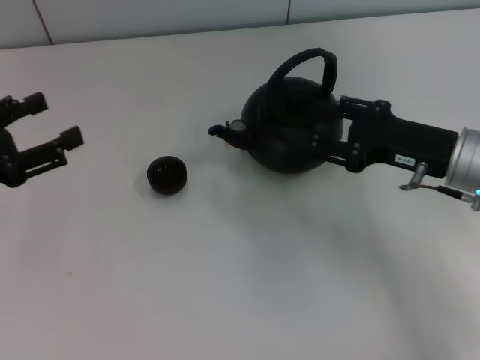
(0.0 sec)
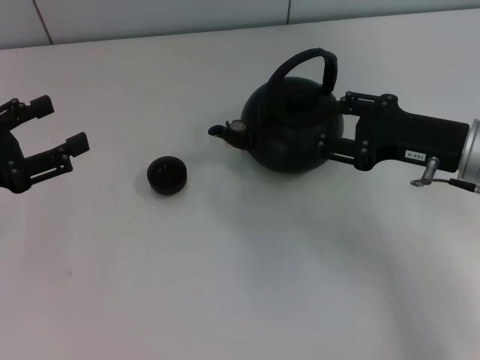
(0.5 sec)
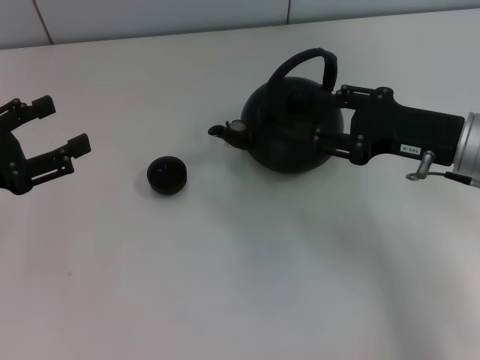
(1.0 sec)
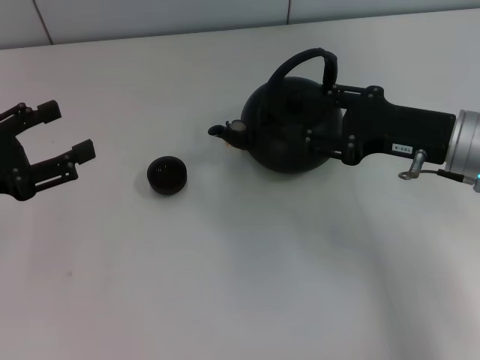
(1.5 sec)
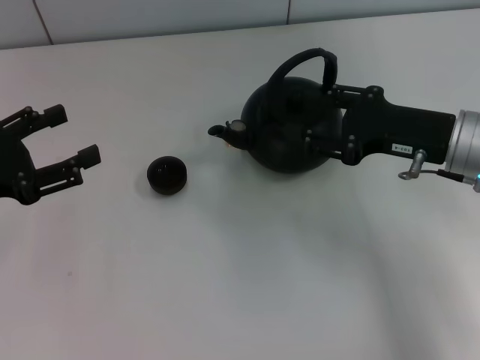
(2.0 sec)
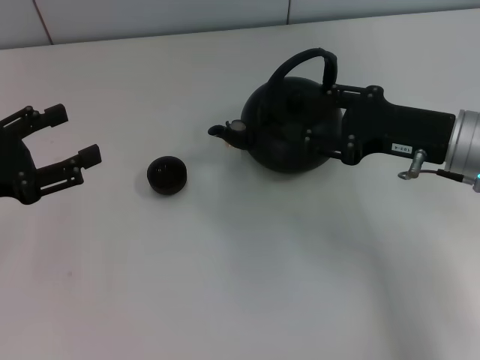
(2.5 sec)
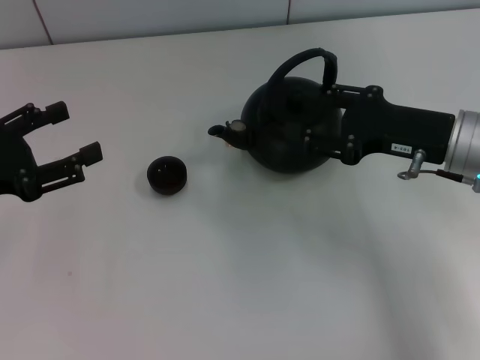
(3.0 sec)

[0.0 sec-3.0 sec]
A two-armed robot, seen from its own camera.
Task of the whole recording: Grasp the handle of the teapot with one hand and pour tea into the teacup.
0.0 sec to 1.5 sec: There are only small adjustments of the grippers.
1.5 sec to 3.0 sec: The two grippers keep their place.

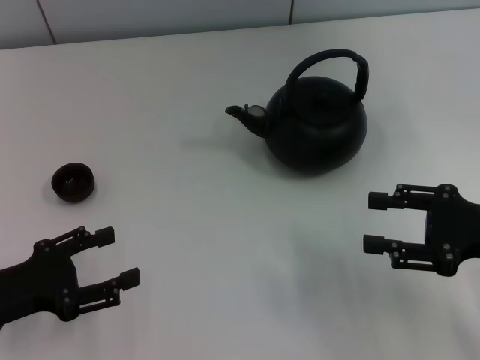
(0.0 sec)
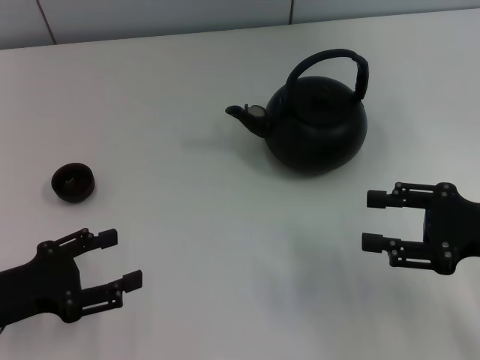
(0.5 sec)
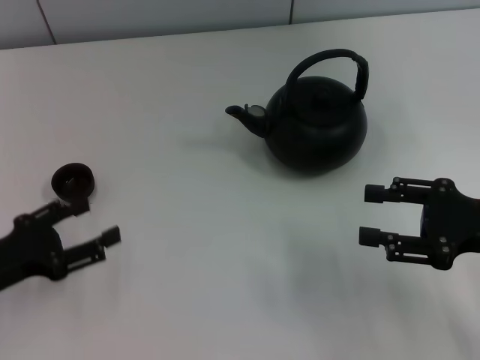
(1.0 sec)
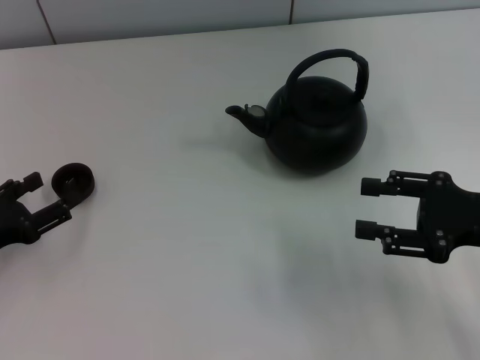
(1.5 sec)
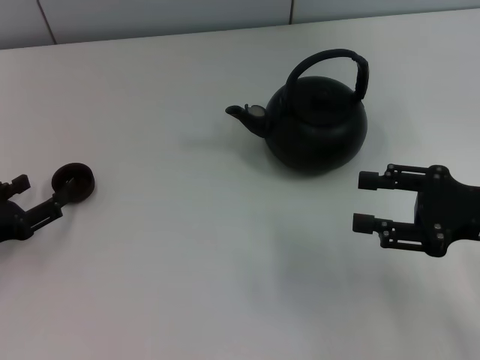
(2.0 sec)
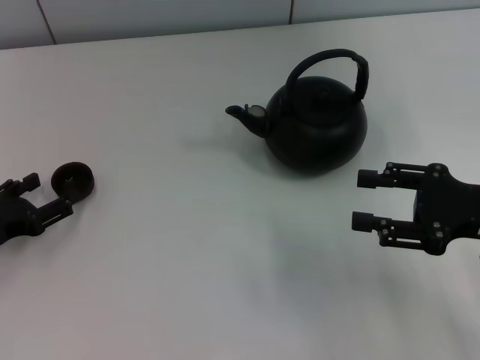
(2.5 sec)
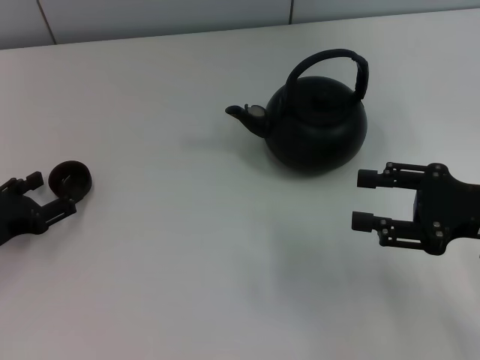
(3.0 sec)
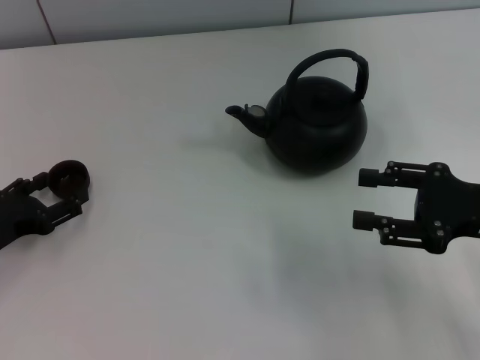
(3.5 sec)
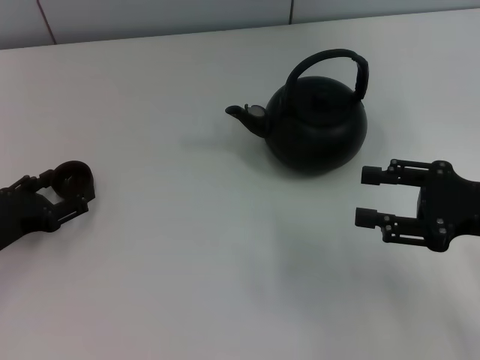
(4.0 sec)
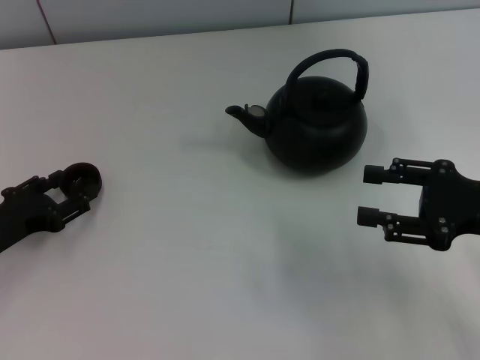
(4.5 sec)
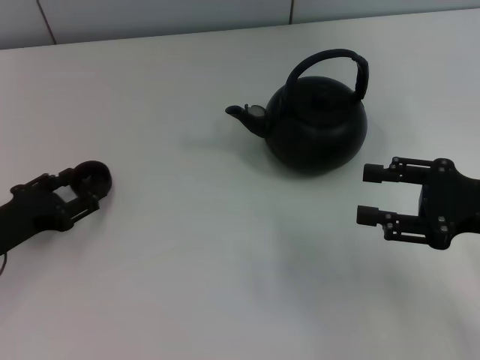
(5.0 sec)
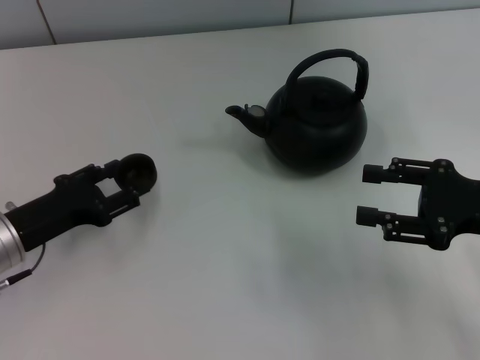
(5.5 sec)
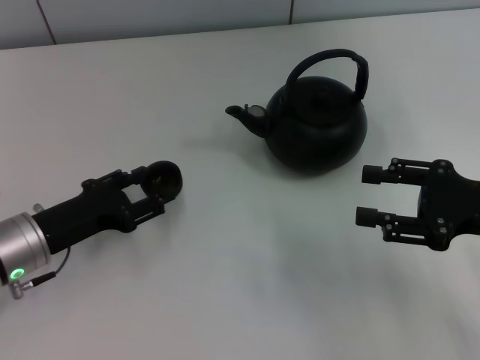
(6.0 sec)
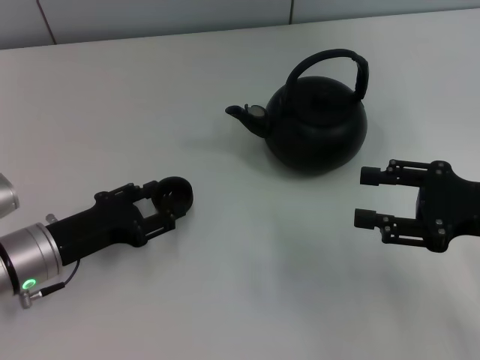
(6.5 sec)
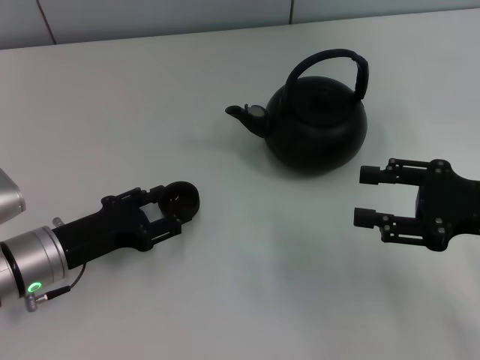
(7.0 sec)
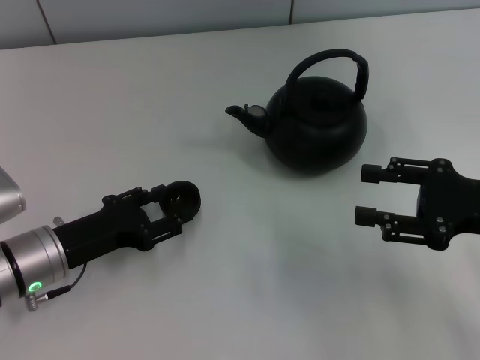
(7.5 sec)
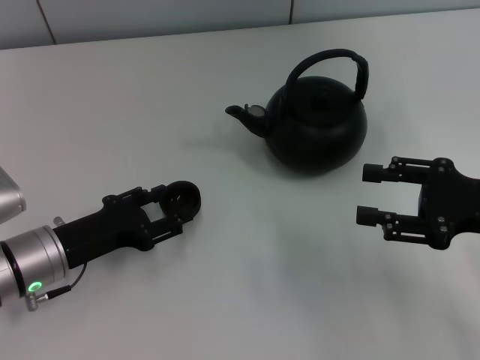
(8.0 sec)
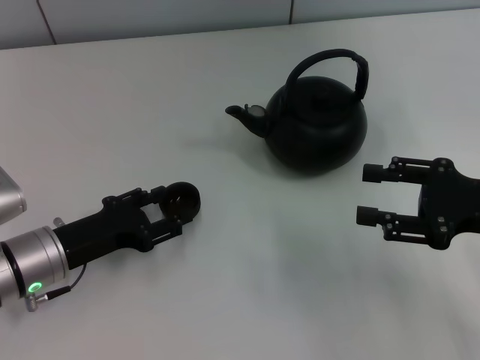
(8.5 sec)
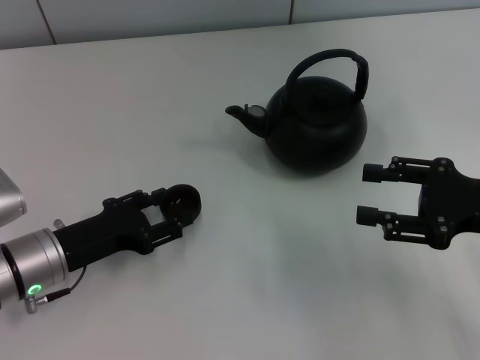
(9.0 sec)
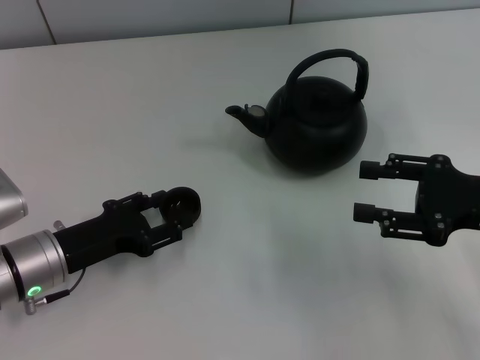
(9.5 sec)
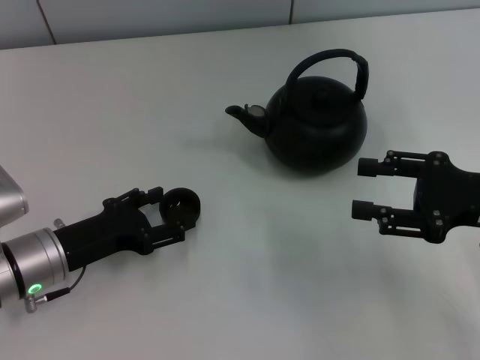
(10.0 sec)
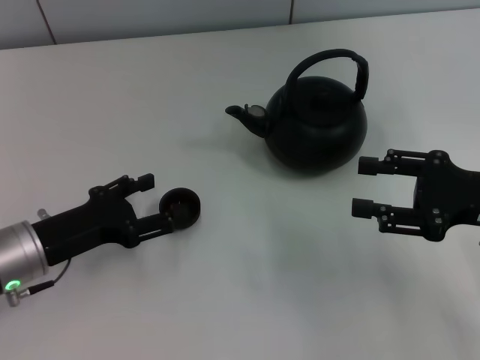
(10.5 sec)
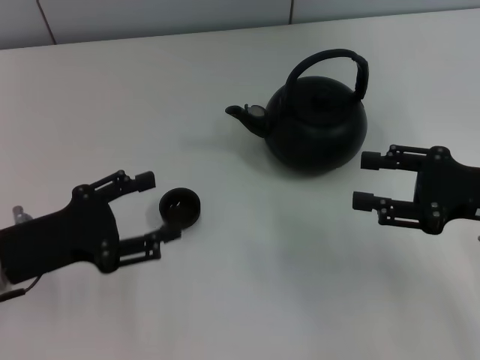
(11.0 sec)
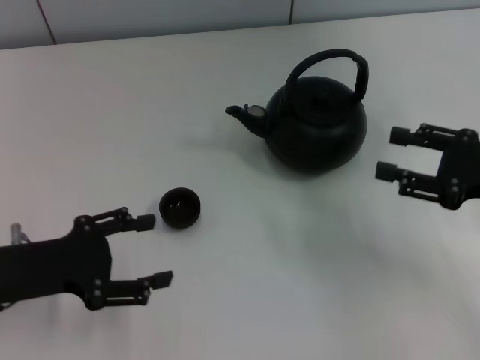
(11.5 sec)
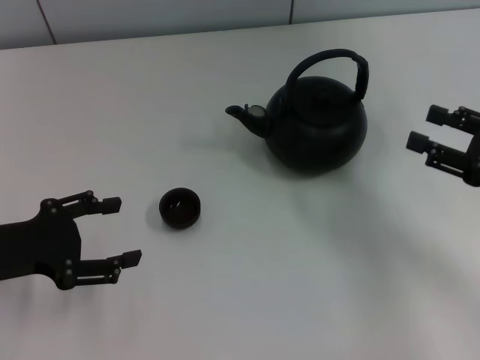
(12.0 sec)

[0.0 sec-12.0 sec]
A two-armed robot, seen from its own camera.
Task of the whole recording: Grasp the handle of the teapot with one hand and pour tea into the teacup.
Step, 0.0 sec to 5.0 sec: Pick up the teacup with the left gripper.
Step, 5.5 sec to 10.5 sec: Place the teacup in the center of view with the left gripper.
0.0 sec to 2.0 sec: The left gripper moves about 5 cm.
2.0 sec to 4.0 sec: The grippers make only small movements.
4.0 sec to 6.0 sec: The left gripper moves to the right, about 5 cm, and closes its fingers.
6.0 sec to 8.0 sec: There are only small adjustments of the grippers.
8.0 sec to 10.0 sec: Both grippers stay put.
10.0 sec to 12.0 sec: The left gripper goes about 10 cm upward and to the left.

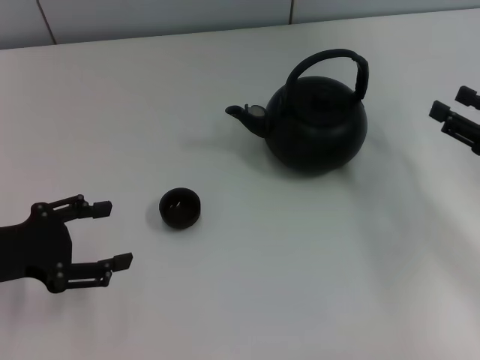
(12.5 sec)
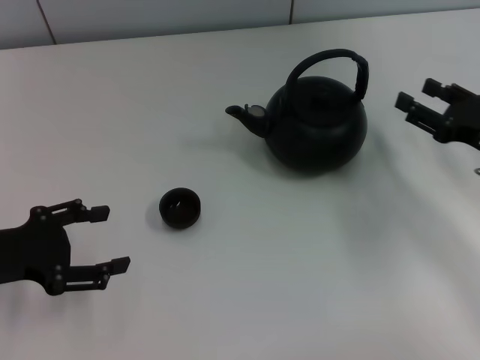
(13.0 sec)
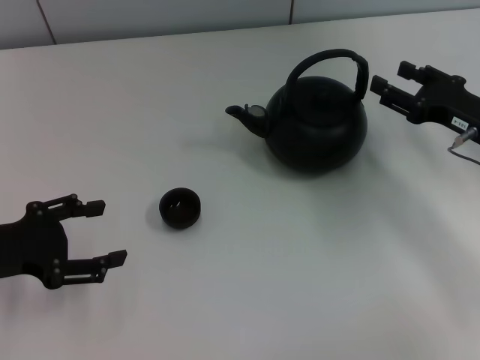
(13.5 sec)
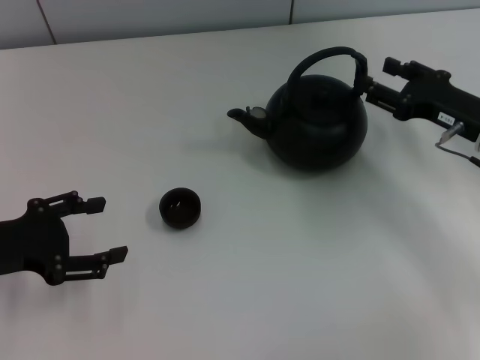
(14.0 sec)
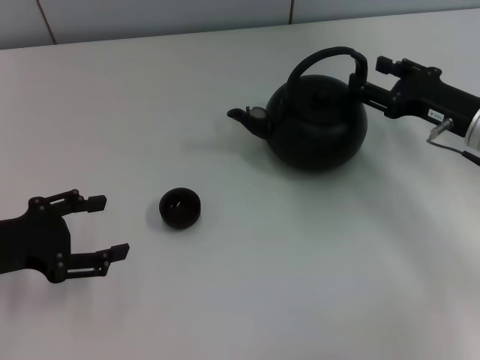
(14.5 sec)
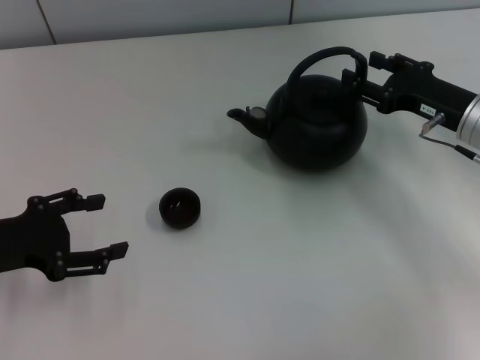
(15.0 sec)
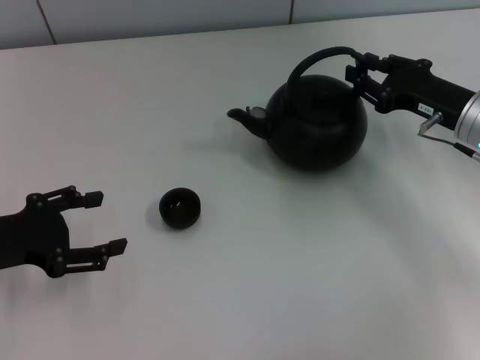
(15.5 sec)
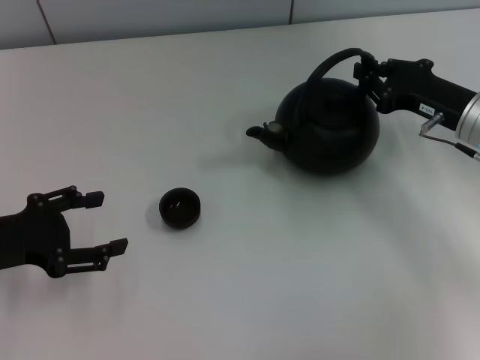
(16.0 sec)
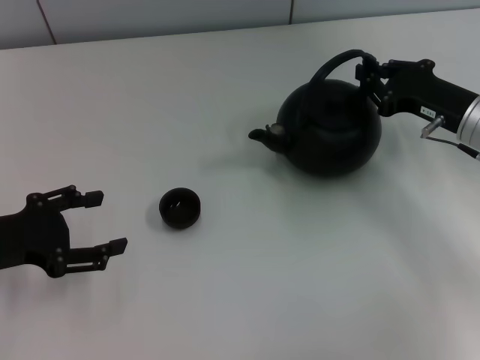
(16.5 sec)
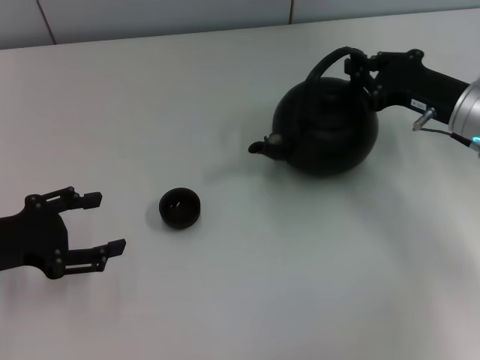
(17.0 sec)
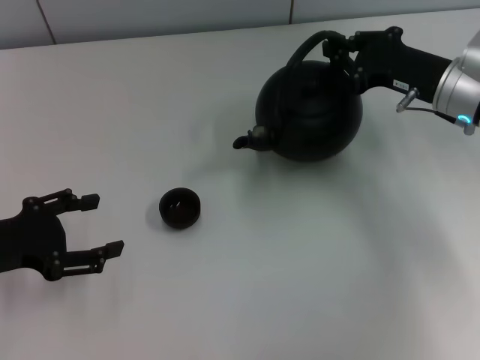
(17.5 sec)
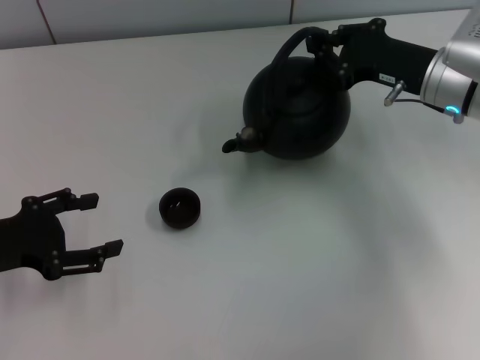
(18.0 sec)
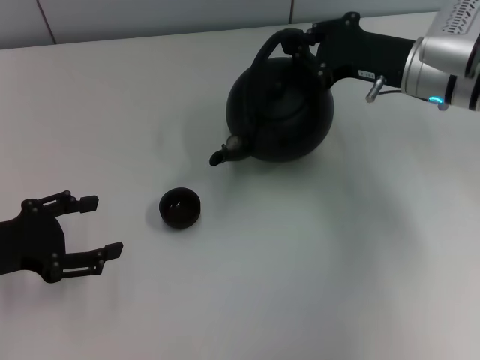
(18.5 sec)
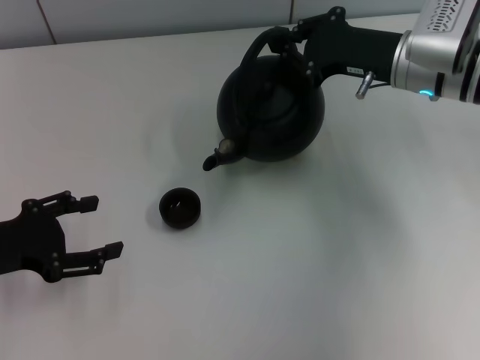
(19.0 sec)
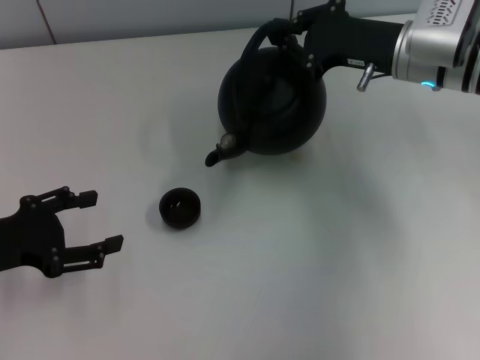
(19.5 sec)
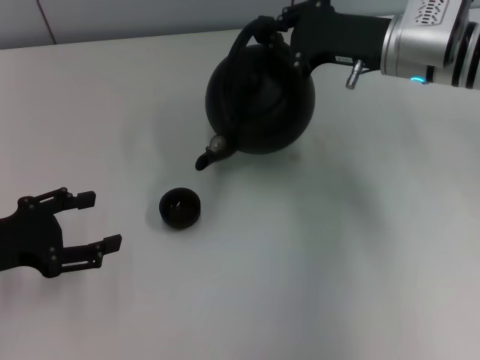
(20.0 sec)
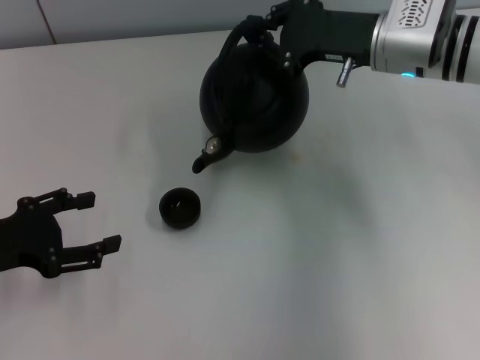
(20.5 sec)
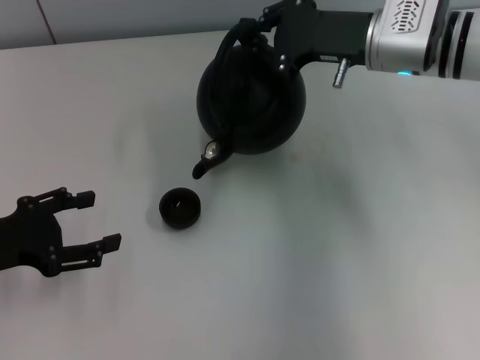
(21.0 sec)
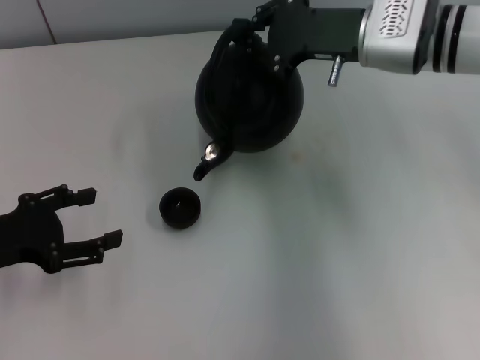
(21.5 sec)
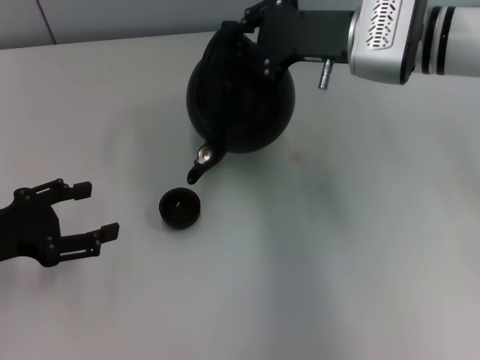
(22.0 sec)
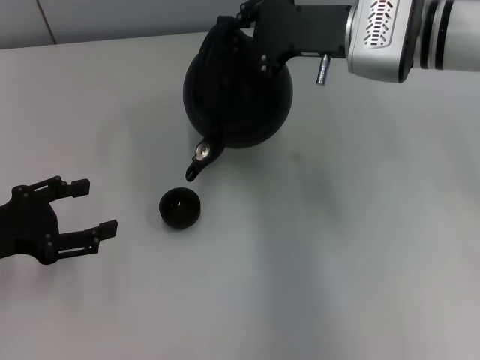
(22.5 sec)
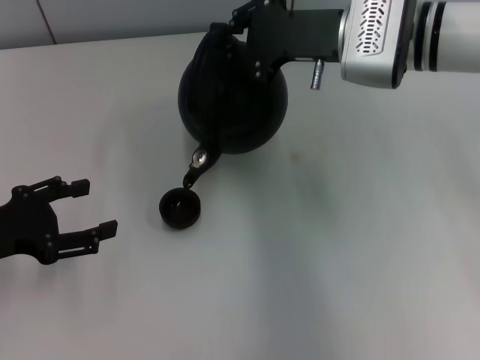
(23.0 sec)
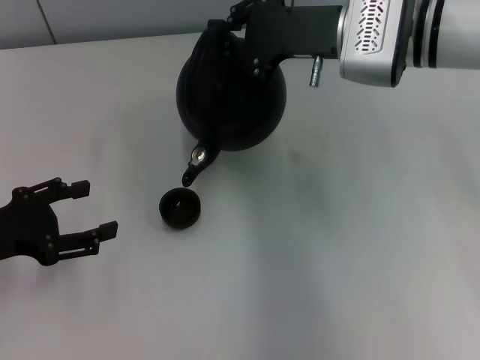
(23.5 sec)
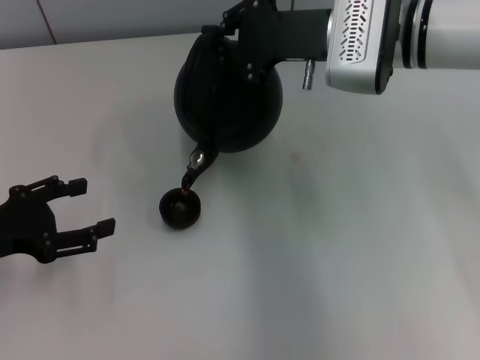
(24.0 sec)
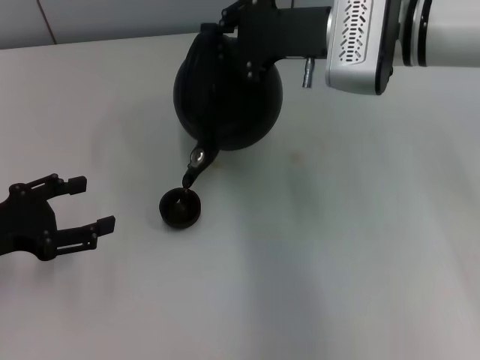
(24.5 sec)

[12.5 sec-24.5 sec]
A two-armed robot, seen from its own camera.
Task of the whole recording: Grasp the handle of the teapot with one hand and pour tea into the teacup.
Step, 12.5 sec to 17.5 sec: Pick up the teapot with the right gripper.
12.5 sec to 14.5 sec: The right gripper is displaced forward and to the left by approximately 10 cm.
14.5 sec to 16.5 sec: The right gripper closes its fingers.
16.5 sec to 18.5 sec: The right gripper heads to the left, covering roughly 5 cm.
18.5 sec to 20.5 sec: The grippers stay close to where they were, moving slightly.
20.5 sec to 24.5 sec: The grippers make only small movements.
